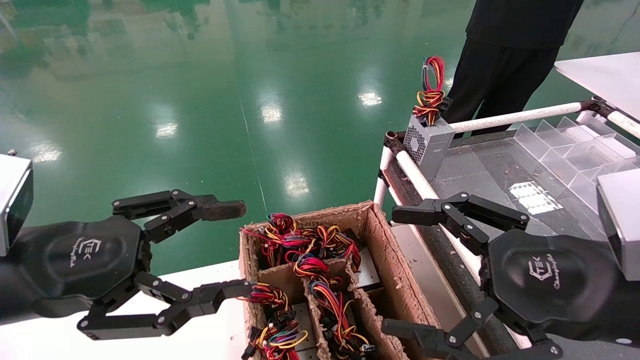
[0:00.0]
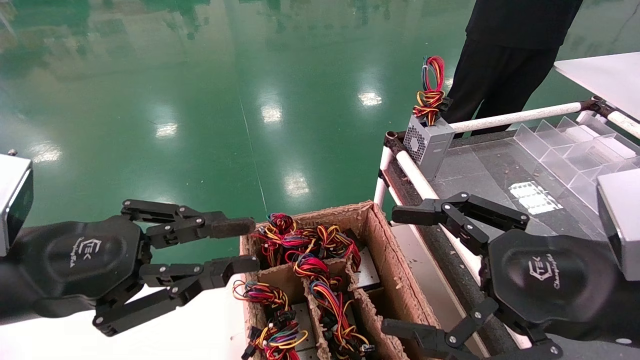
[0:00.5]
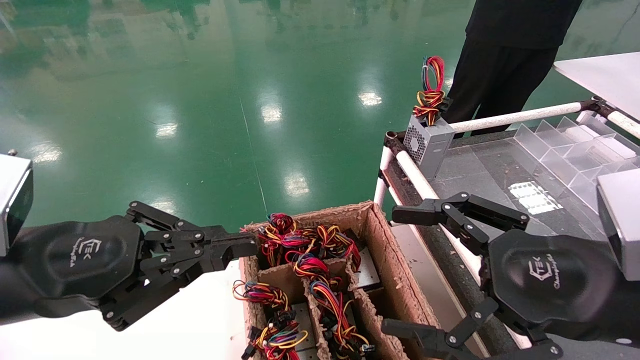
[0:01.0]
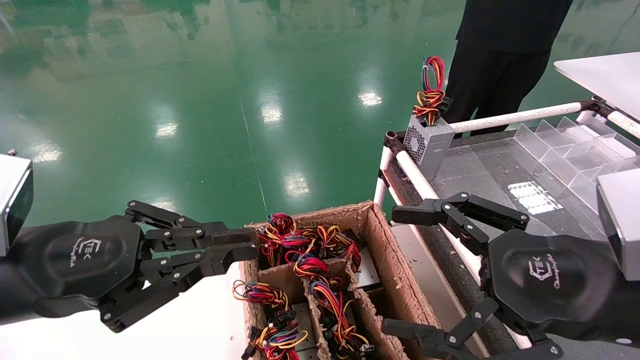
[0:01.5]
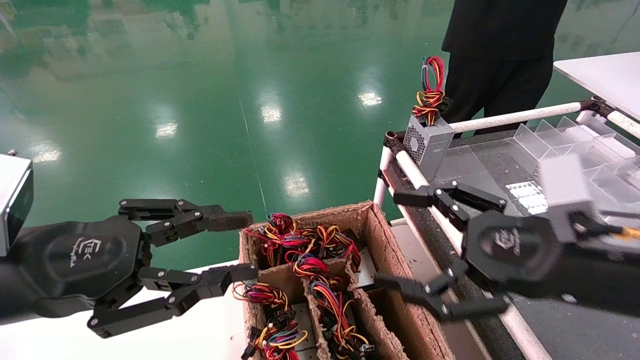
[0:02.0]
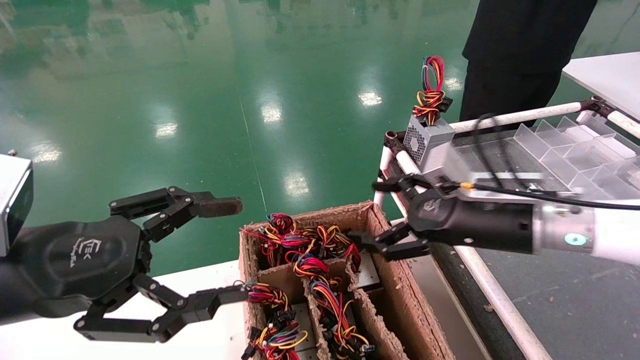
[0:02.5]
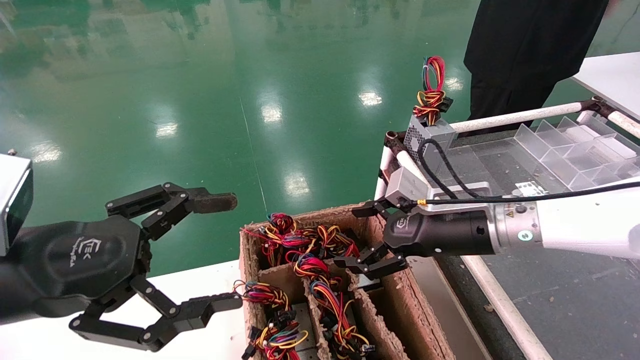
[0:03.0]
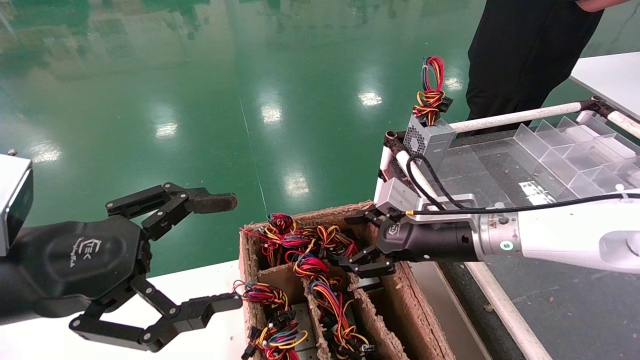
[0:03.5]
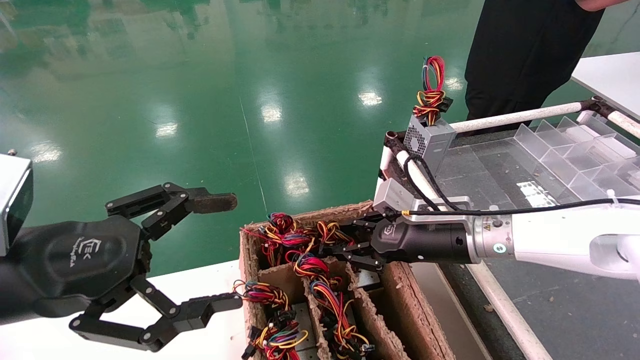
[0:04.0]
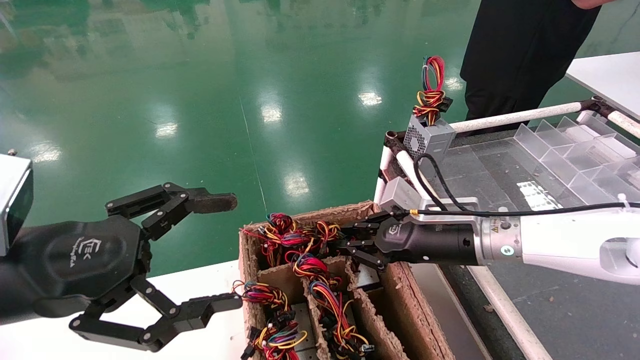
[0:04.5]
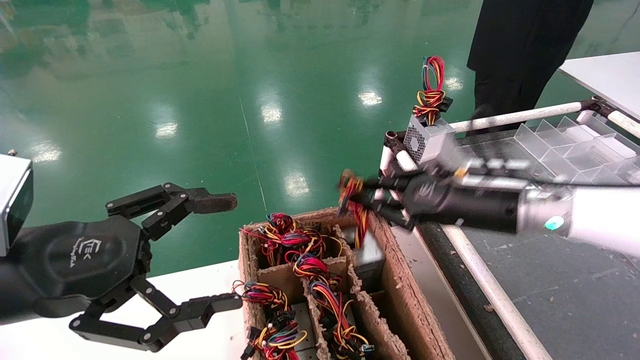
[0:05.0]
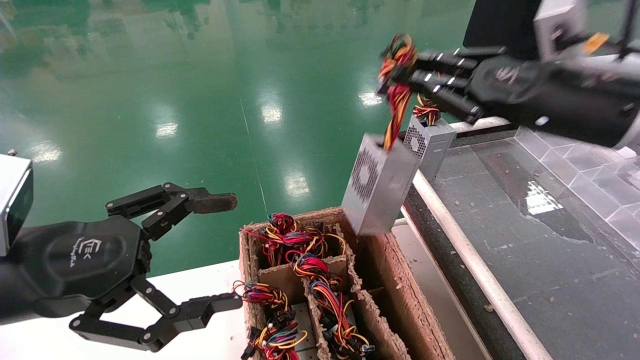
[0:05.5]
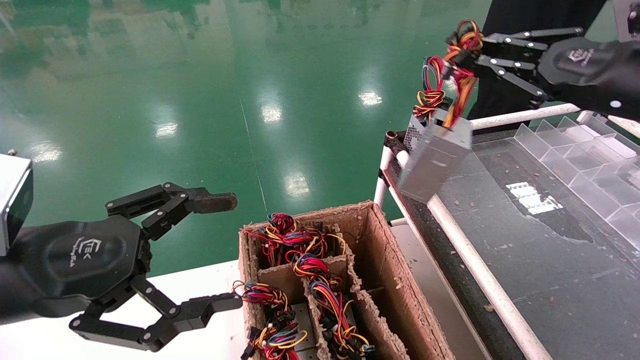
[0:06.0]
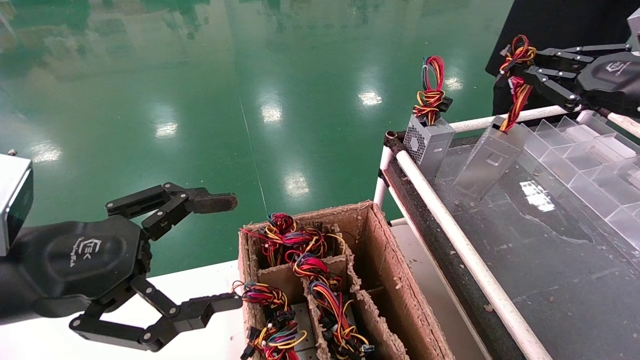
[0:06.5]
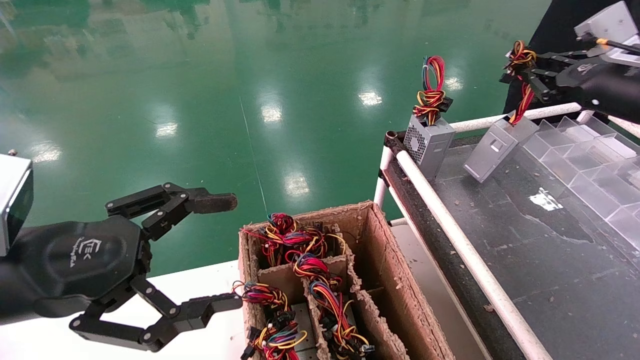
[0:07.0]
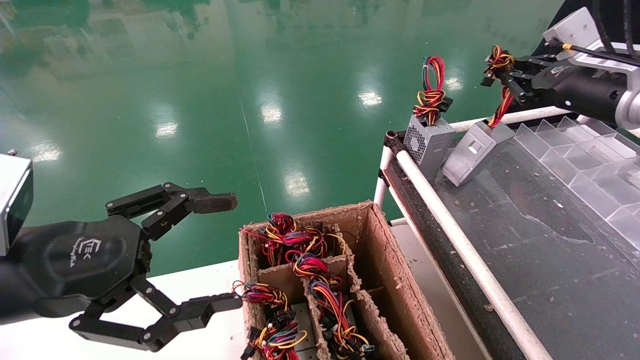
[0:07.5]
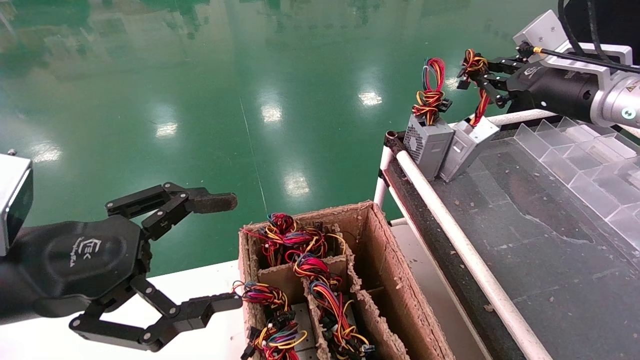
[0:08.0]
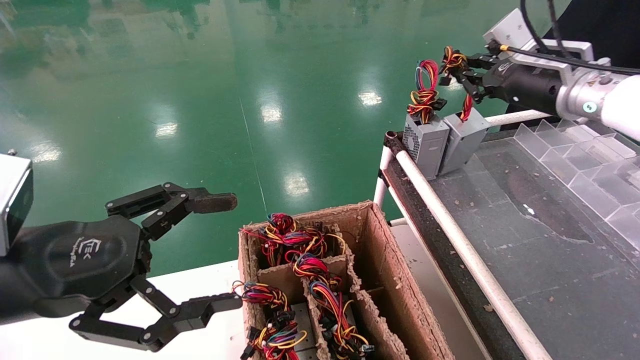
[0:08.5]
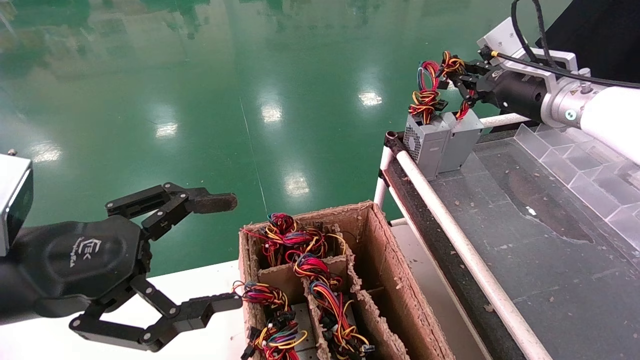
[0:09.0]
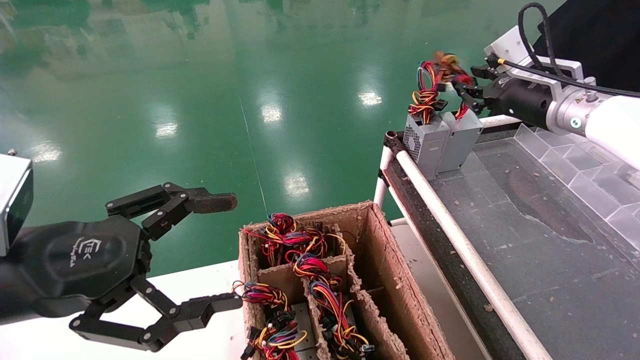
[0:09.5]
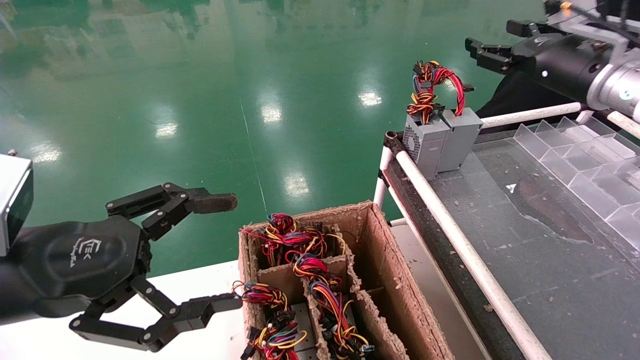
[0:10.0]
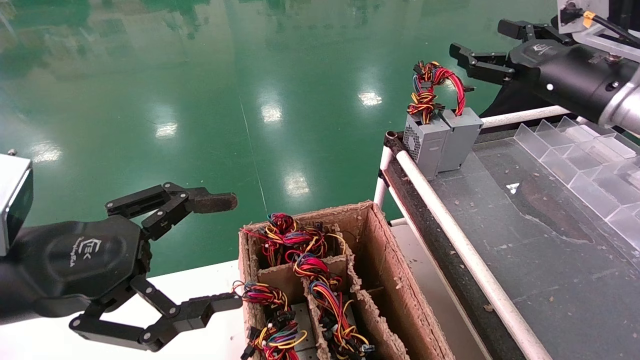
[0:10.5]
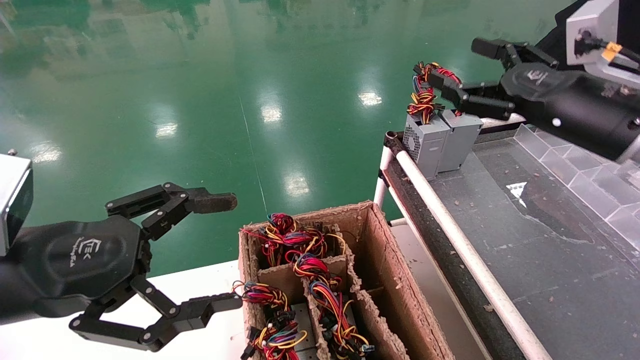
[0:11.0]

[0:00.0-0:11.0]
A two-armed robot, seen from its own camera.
Step, 0:01.5 to 0:04.0: Grab and lift the power supply from the large box.
Step, 0:04.5 to 0:09.0: Place the power supply on the operating table.
0:00.0 to 0:02.0: The left gripper closes; the right gripper is displaced forward by roughly 5 cm.
0:02.0 to 0:03.5: The right gripper goes about 15 cm forward and to the left, while the left gripper opens.
0:03.5 to 0:05.5: The right gripper travels upward and to the right by approximately 20 cm, and closes.
0:05.5 to 0:07.5: The right gripper is displaced to the right and forward by some 15 cm.
0:07.5 to 0:09.0: The right gripper is displaced to the left by roughly 5 cm.
0:09.0 to 0:11.0: The right gripper moves backward, roughly 10 cm, and opens.

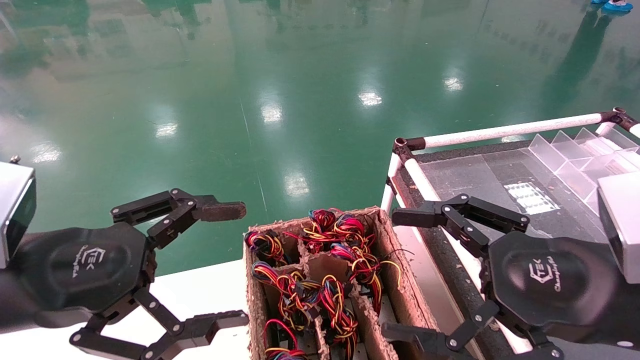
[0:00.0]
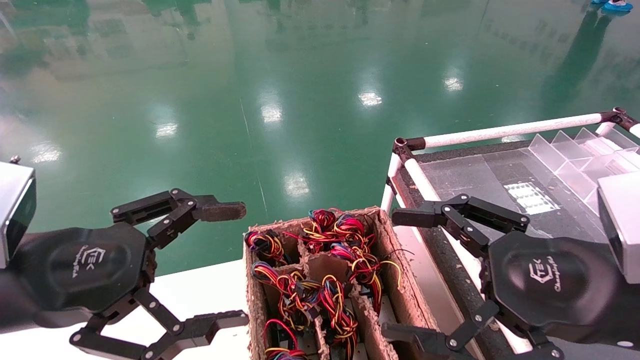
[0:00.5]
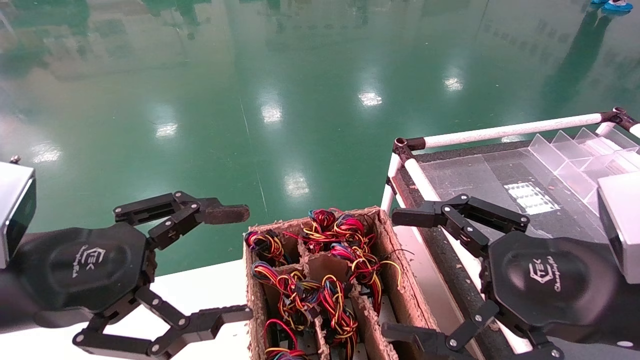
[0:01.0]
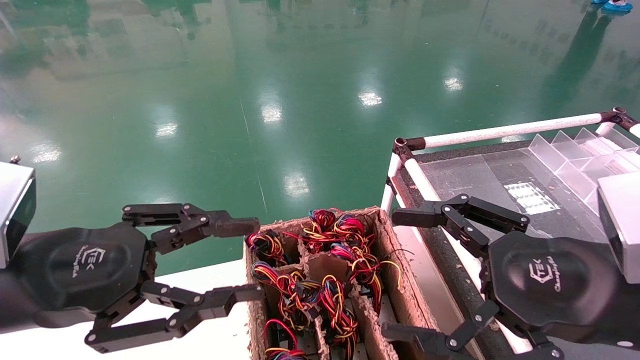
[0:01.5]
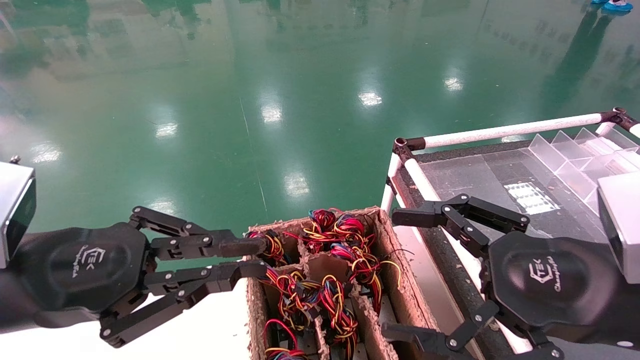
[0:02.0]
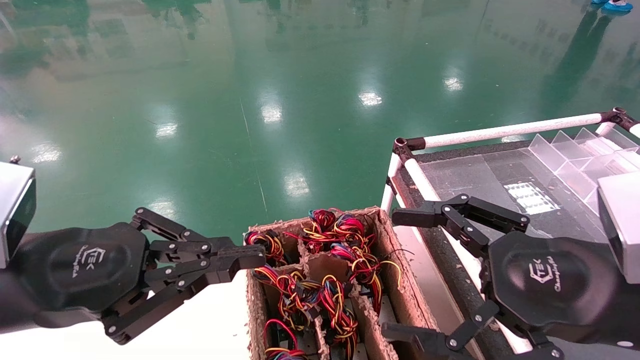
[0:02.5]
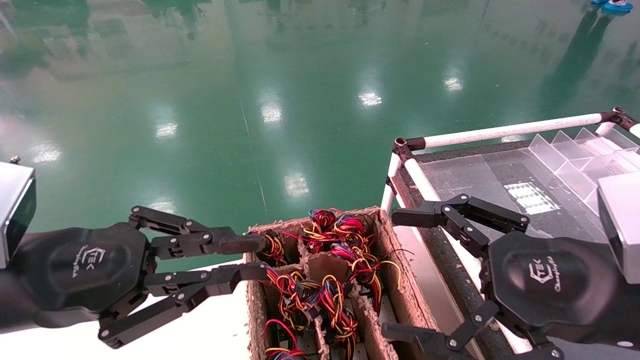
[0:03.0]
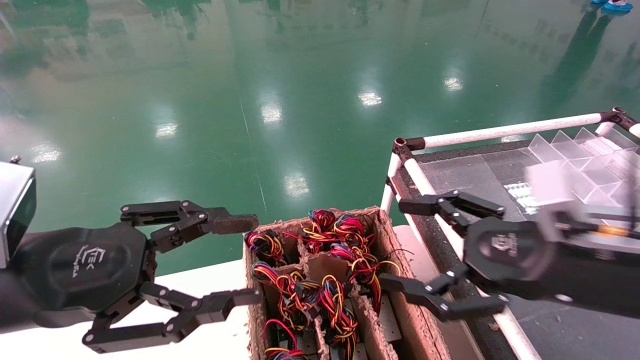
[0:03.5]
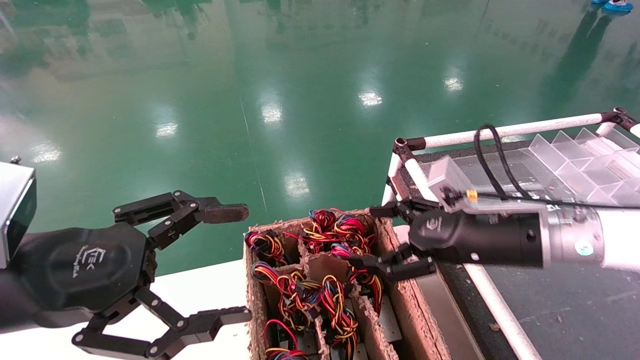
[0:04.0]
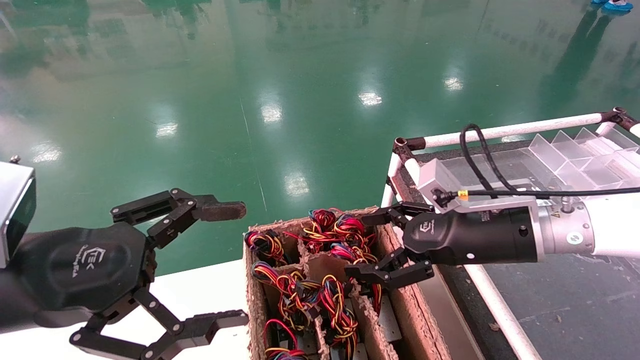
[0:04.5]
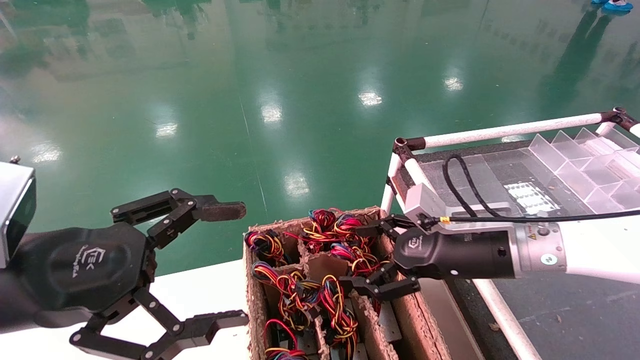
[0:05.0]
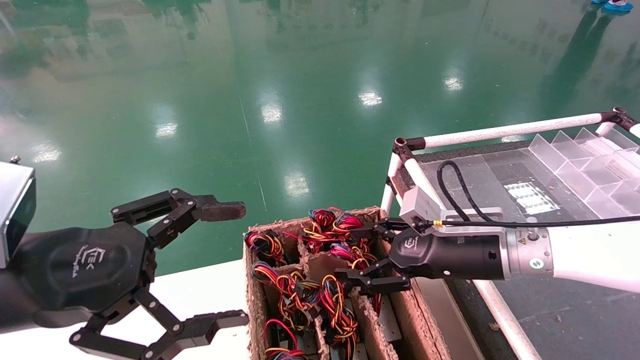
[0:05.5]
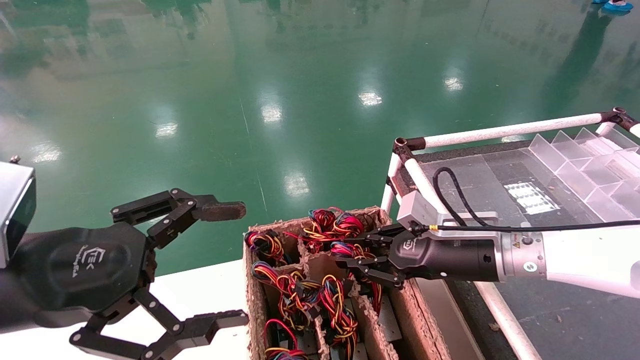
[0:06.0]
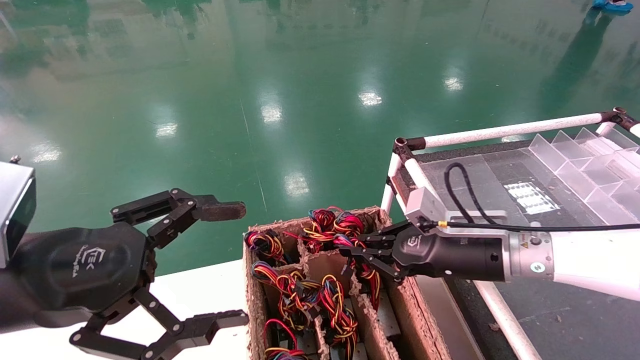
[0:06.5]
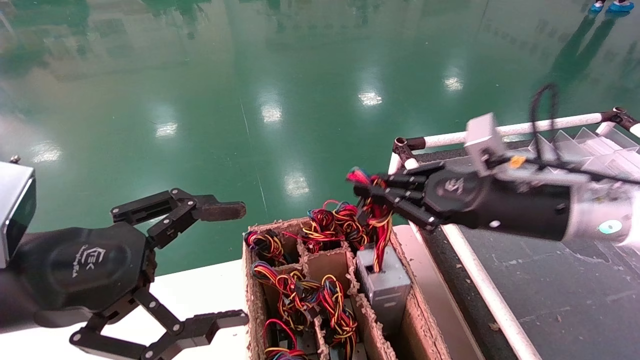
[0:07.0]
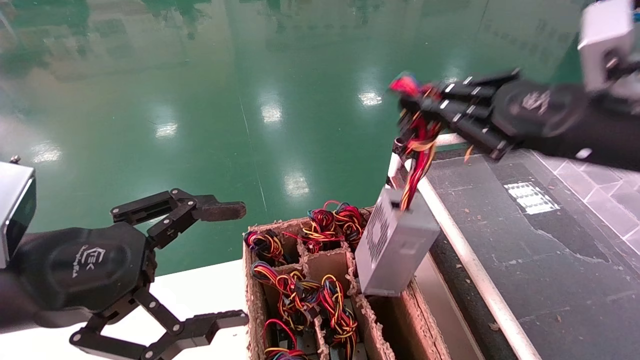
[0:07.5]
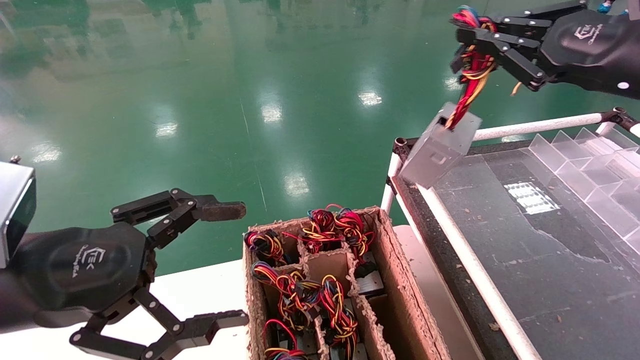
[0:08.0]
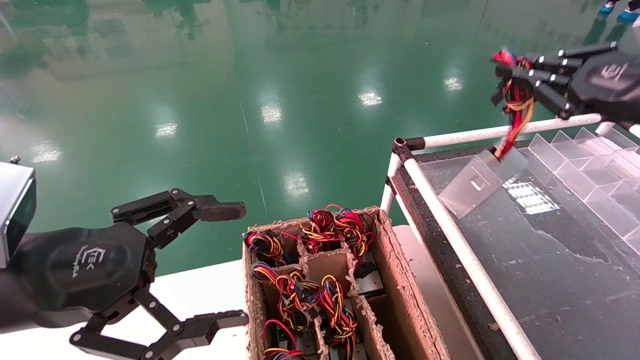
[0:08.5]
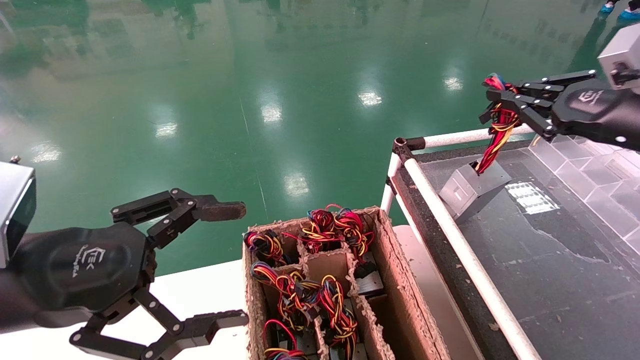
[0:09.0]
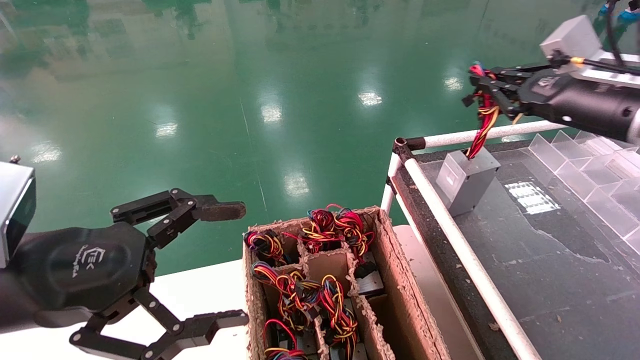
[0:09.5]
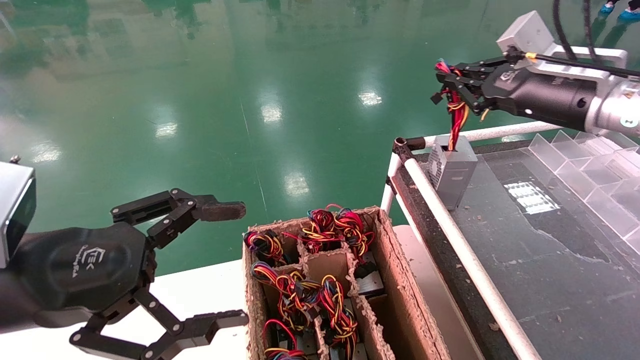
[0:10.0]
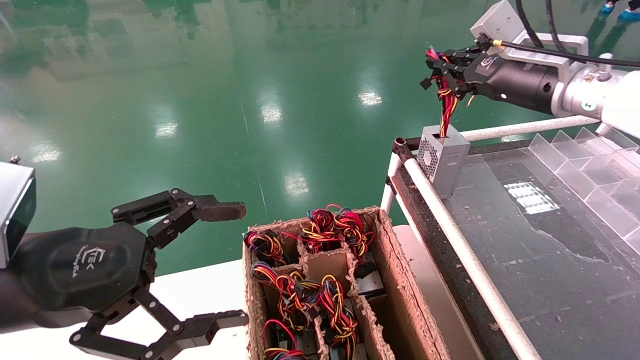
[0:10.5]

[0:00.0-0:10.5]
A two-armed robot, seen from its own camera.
Step, 0:02.5 to 0:06.5: Grab and lift the power supply from the large box.
0:00.0 to 0:02.0: The left gripper closes.
0:02.0 to 0:04.0: The right gripper moves forward, roughly 15 cm; the left gripper opens its fingers.
0:04.0 to 0:06.5: The right gripper changes place by roughly 5 cm, and closes up.
0:06.5 to 0:08.5: The right gripper travels upward and to the right by approximately 25 cm.
0:08.5 to 0:10.5: The right gripper travels forward and to the left by about 15 cm.
